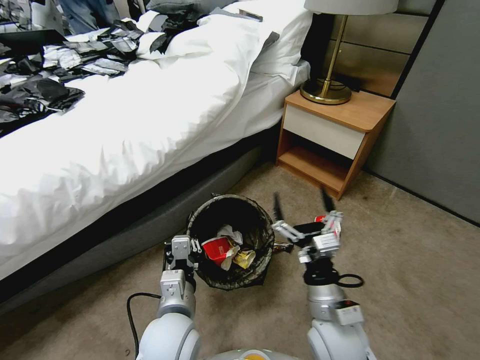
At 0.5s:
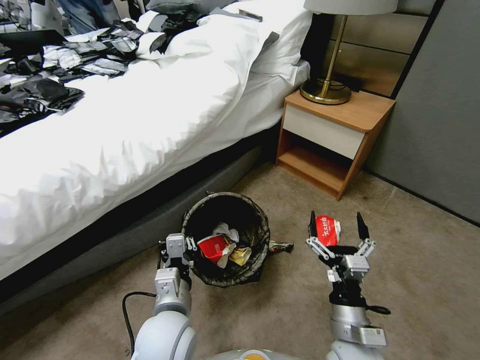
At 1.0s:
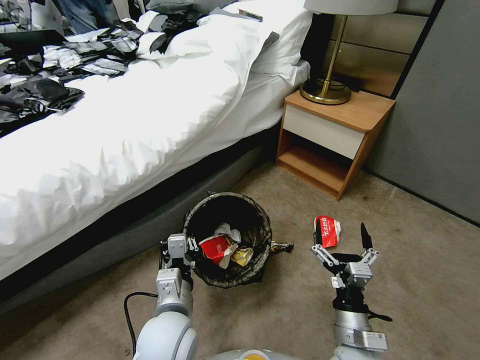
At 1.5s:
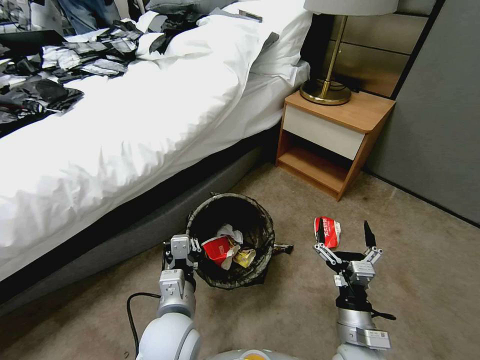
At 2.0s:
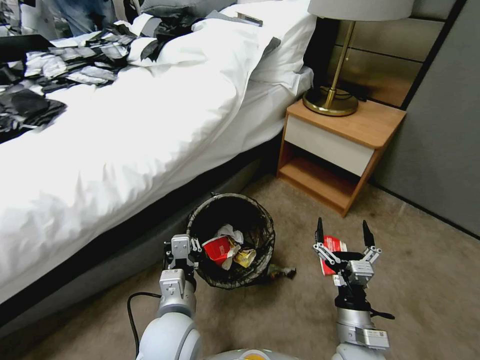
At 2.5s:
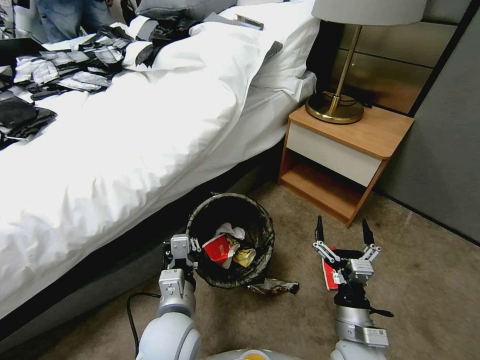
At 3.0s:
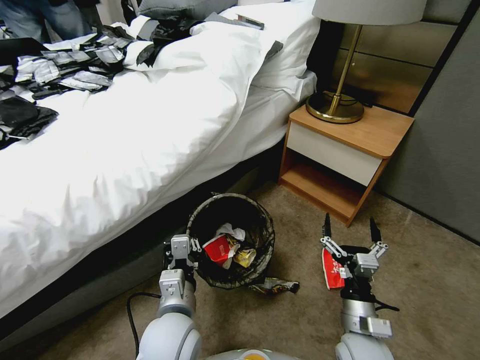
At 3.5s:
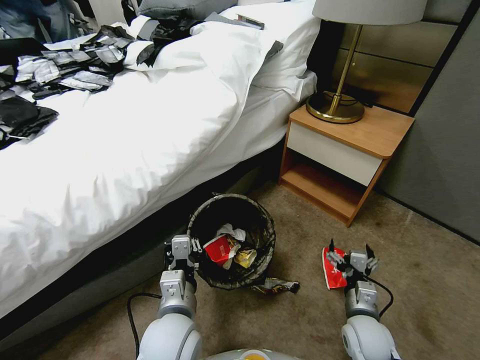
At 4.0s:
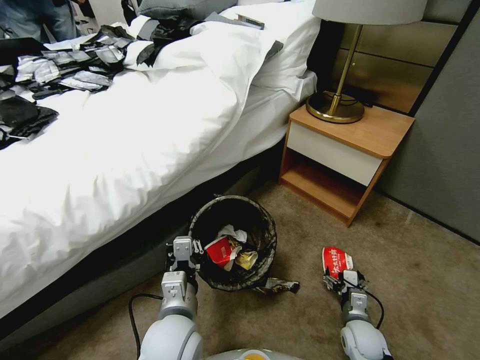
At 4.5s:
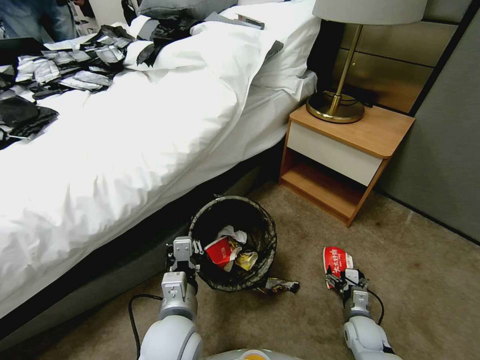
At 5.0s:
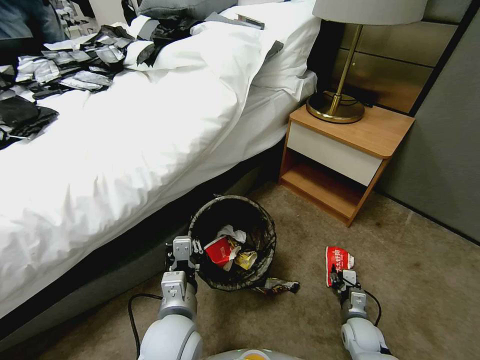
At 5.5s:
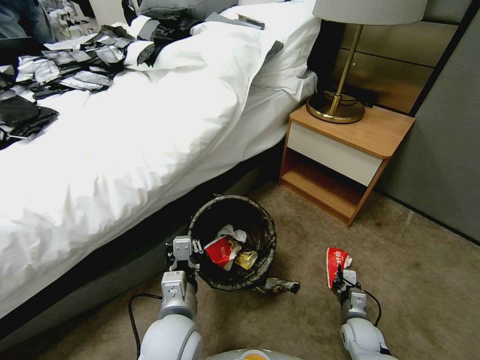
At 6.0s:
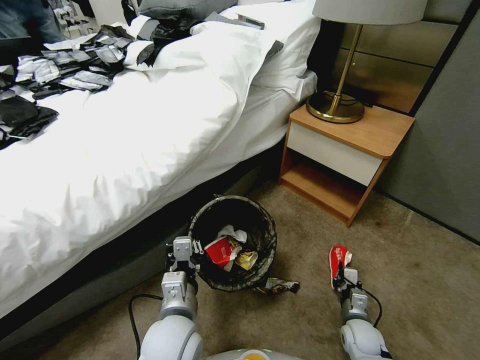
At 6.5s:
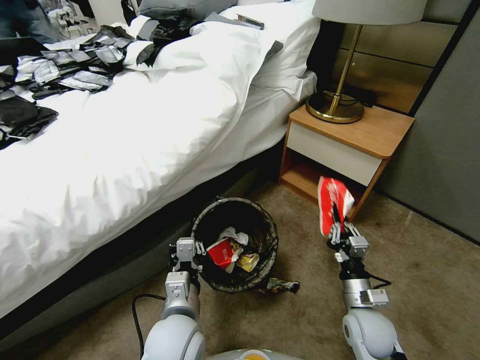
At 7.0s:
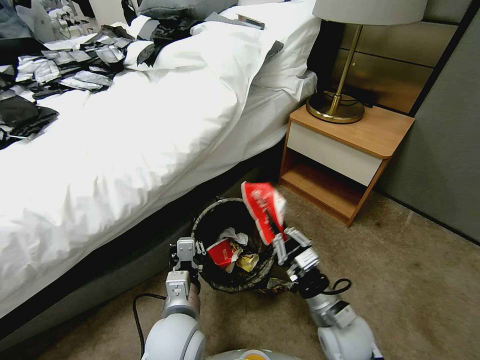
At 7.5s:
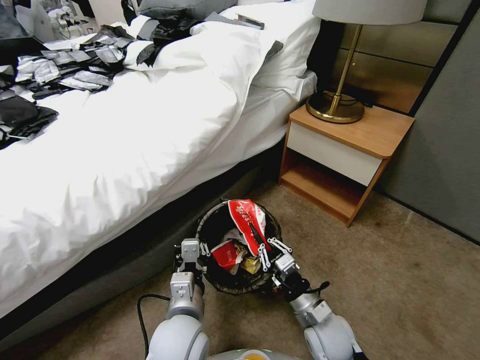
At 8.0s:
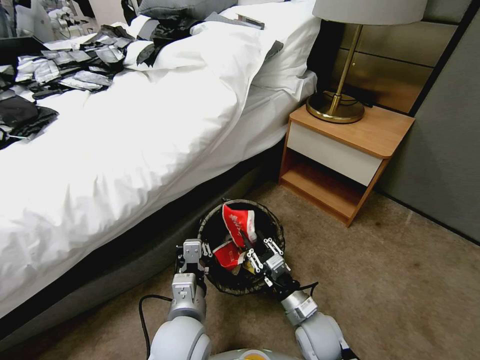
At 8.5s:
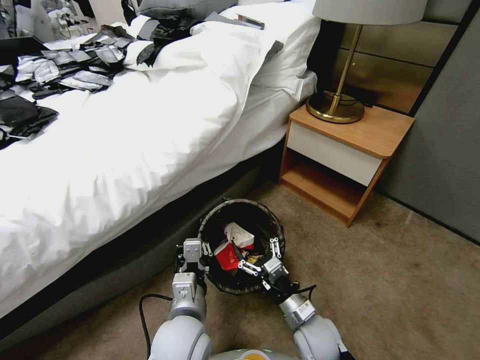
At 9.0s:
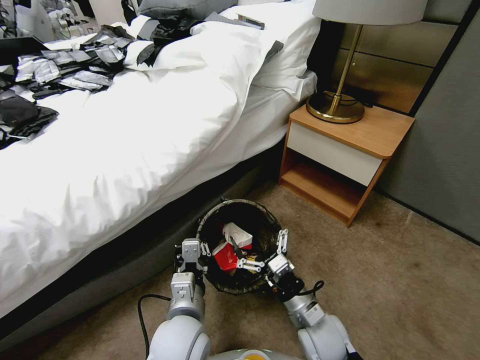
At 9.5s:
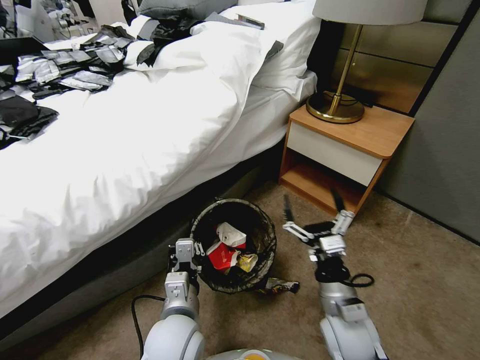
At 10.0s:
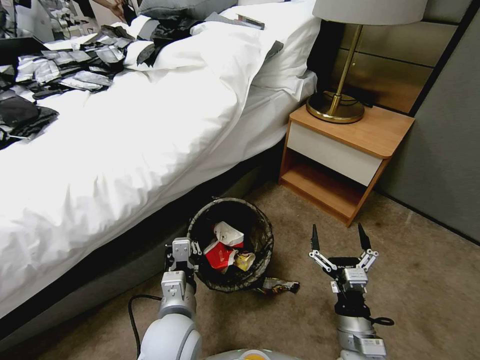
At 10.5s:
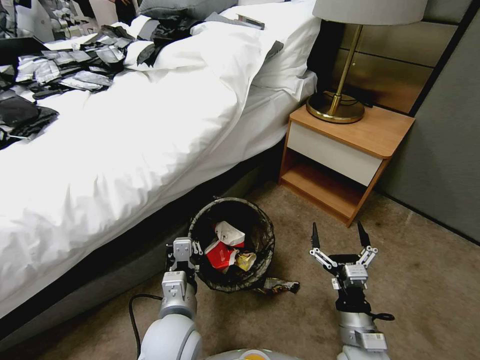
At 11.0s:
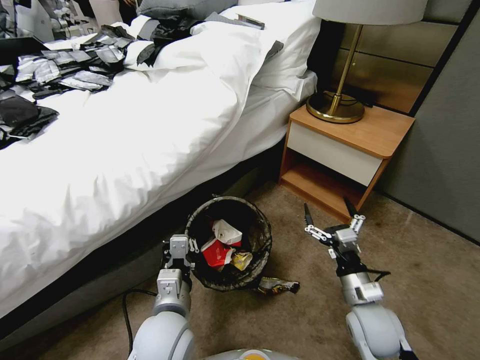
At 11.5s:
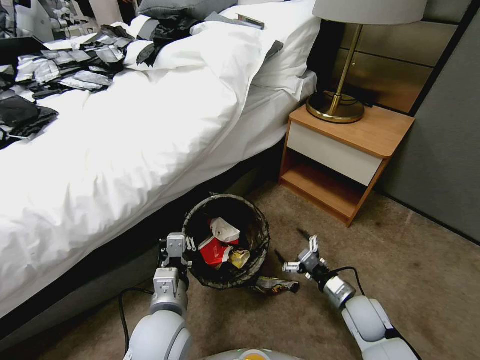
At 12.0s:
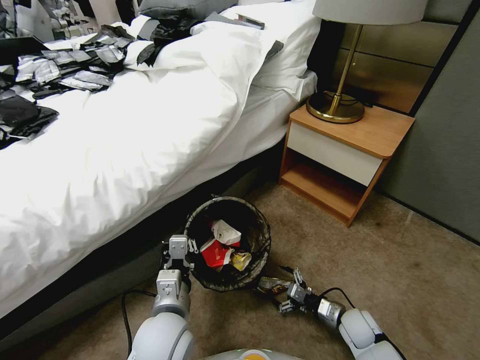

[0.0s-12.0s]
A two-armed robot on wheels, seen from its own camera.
Task of the whole recording: Pick up the trash bin, then pick up the garbage from the floor and place it into the trash bin.
0.0s to 2.0s: The right gripper travels downward and to the right by about 10 cm.
2.0s to 4.0s: The right gripper travels downward, to the right and forward by about 20 cm.
4.0s to 6.0s: The right gripper closes up.
6.0s to 8.0s: The right gripper shifts roughly 20 cm to the left and upward.
8.0s to 10.0s: The right gripper moves backward and to the right, about 10 cm, and opens its fingers.
10.0s to 12.0s: The right gripper travels downward, forward and to the right by approximately 20 cm.

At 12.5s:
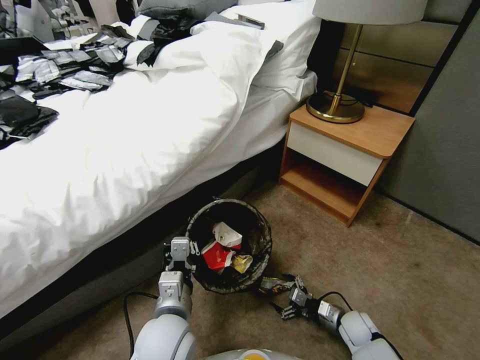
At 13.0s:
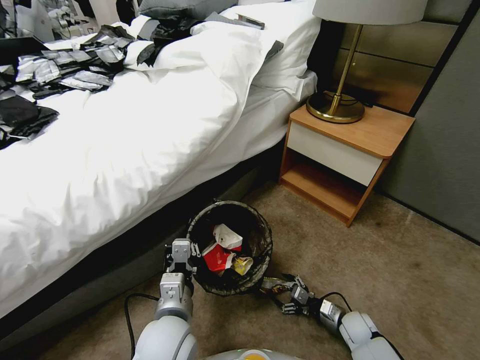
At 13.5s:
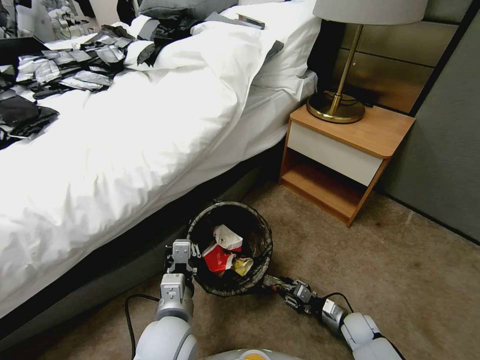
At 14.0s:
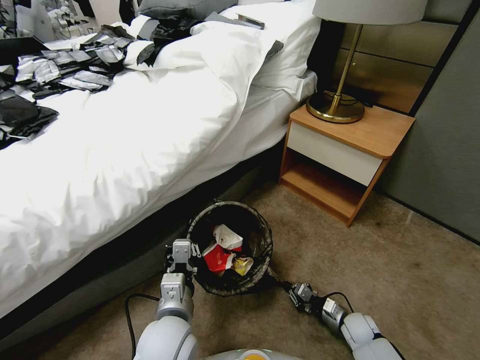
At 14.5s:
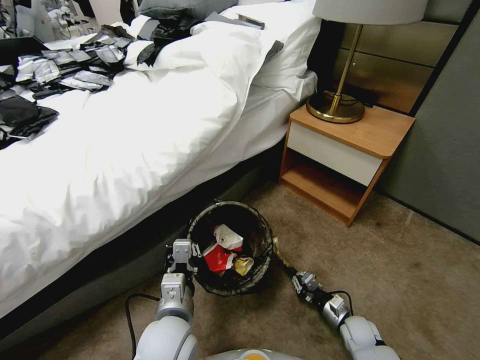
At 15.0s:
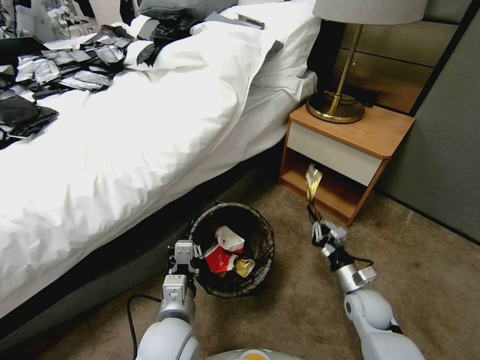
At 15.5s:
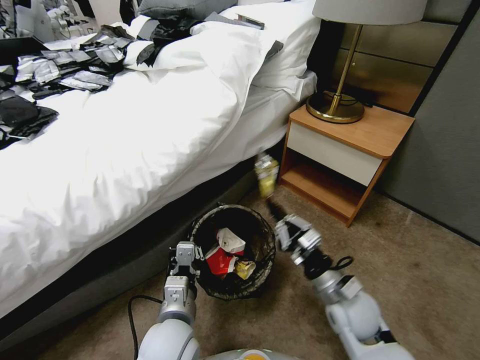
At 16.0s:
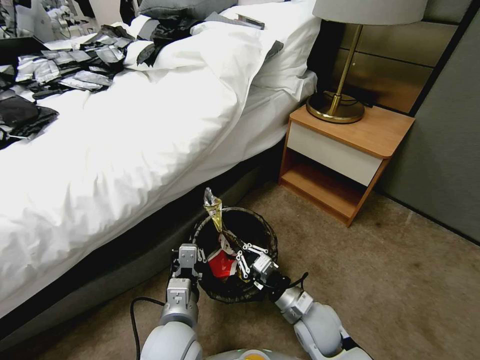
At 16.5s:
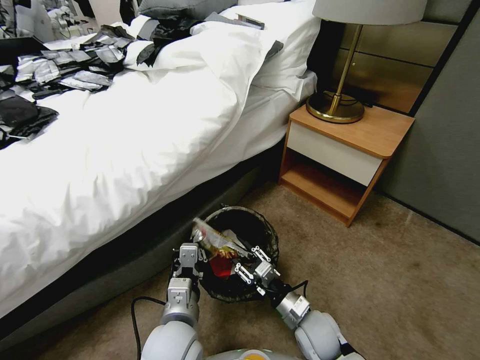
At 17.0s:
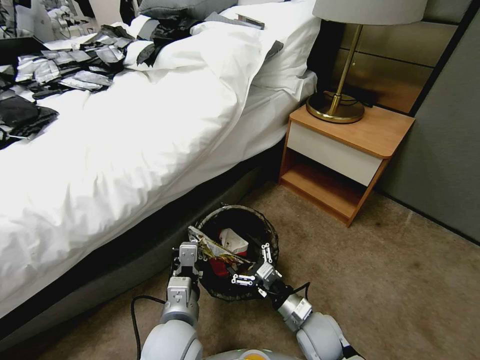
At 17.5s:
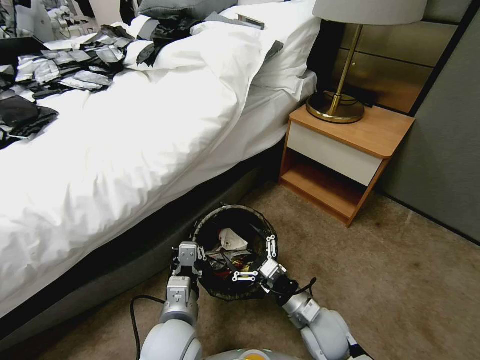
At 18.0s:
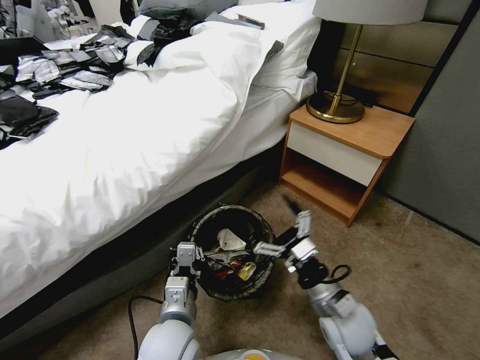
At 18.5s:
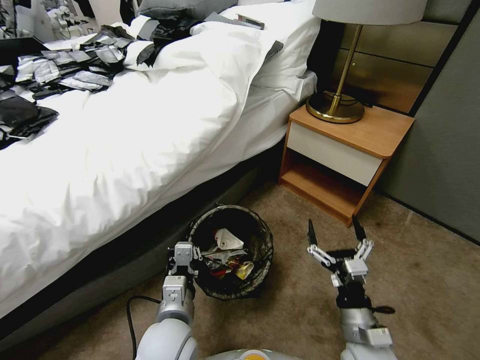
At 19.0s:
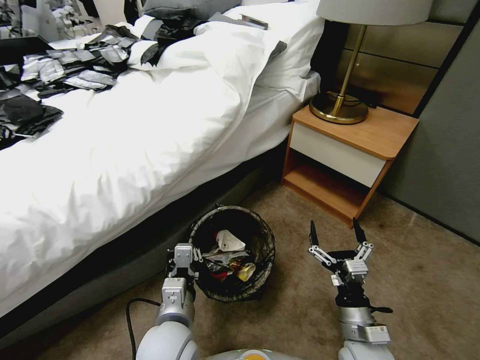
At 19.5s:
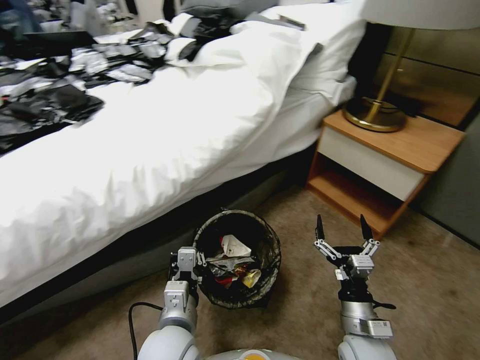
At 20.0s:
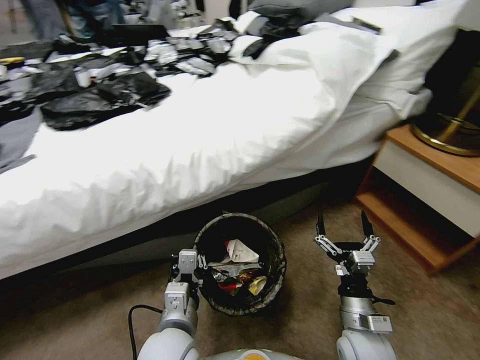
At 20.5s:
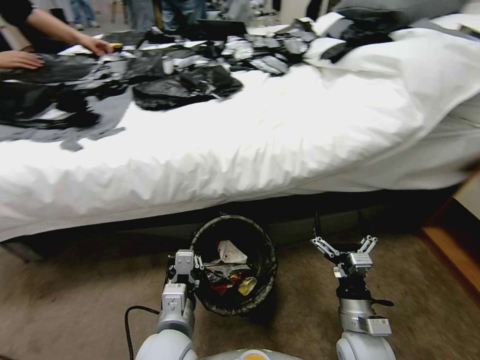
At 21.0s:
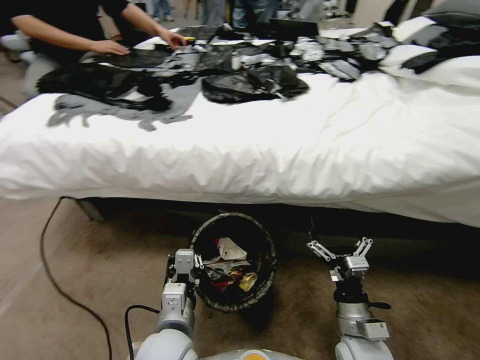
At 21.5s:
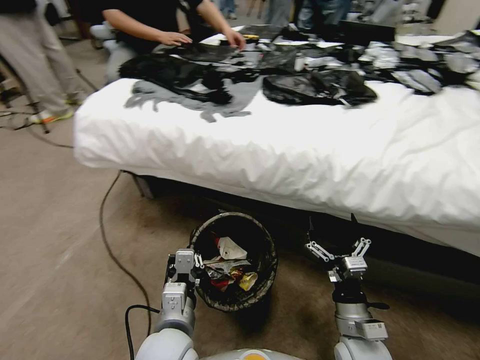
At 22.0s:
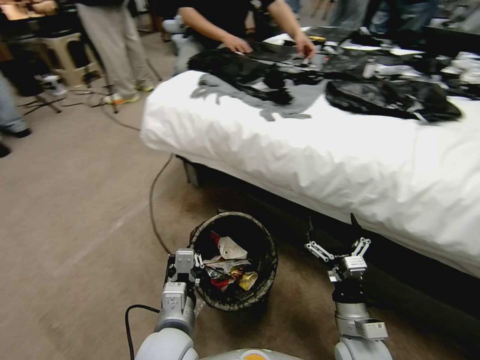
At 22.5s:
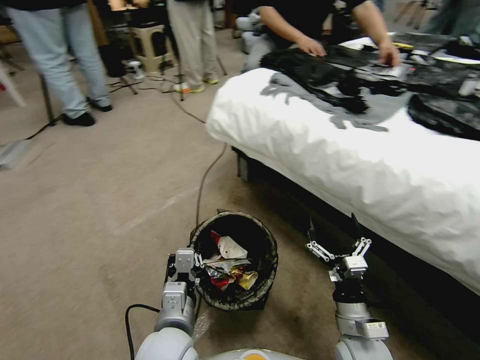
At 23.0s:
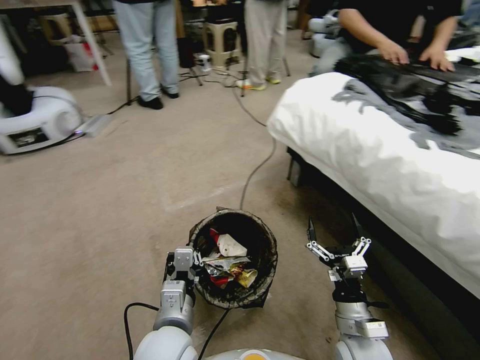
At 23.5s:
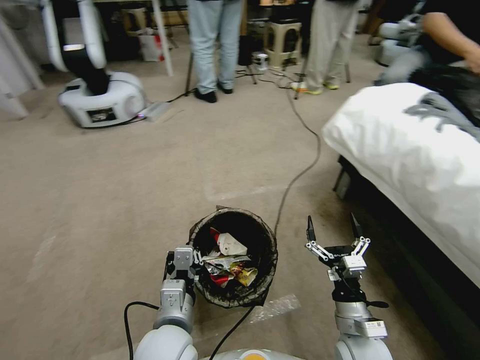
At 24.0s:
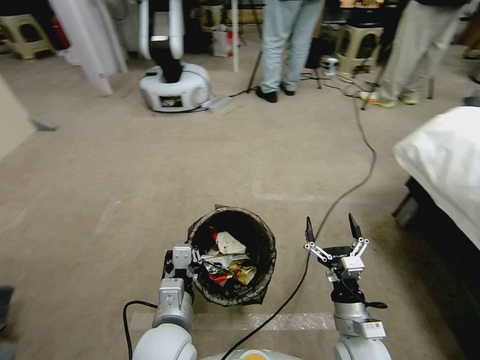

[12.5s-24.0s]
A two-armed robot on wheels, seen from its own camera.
Task of the whole recording: Pick up the trash bin, then pick up the garbage from the floor and place it into the trash bin.
12.5s to 14.5s: The right gripper closes up.
14.5s to 16.5s: The right gripper moves to the left and upward, approximately 20 cm.
16.5s to 18.5s: The right gripper moves to the right, backward and upward, approximately 10 cm, and opens its fingers.

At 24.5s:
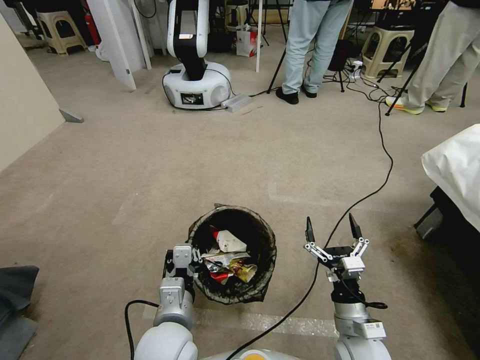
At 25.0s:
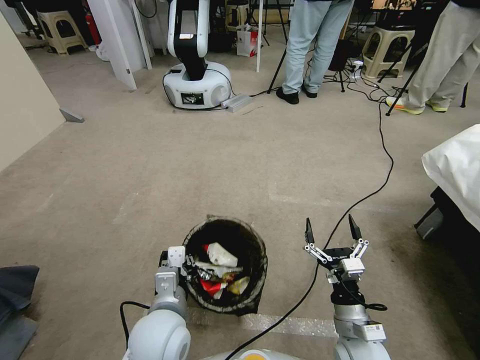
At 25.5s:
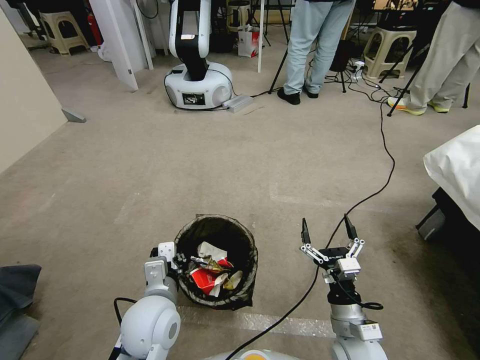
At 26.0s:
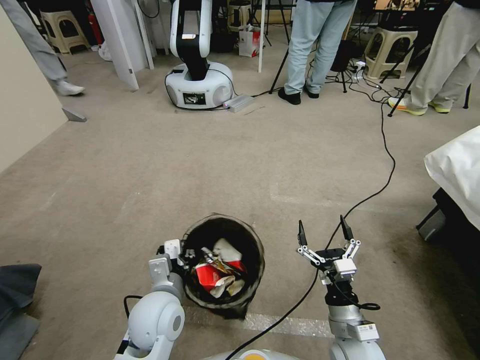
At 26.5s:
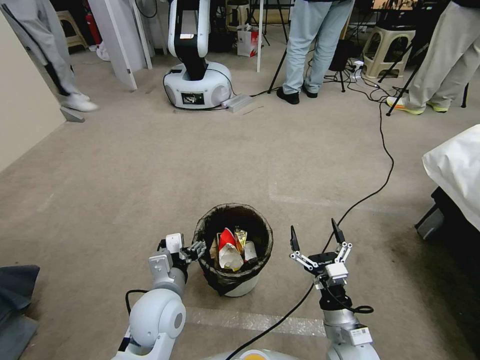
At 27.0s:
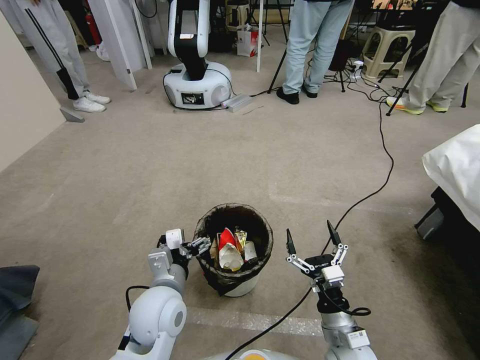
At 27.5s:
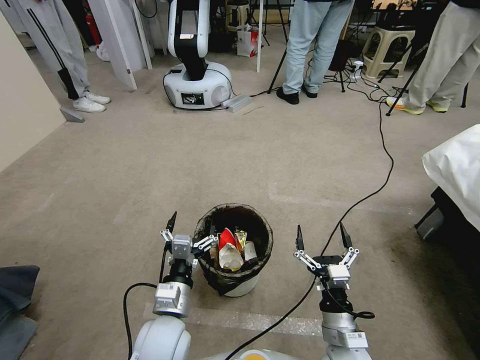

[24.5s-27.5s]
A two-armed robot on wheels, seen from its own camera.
Task of the whole recording: Pick up the trash bin, then pick up the garbage from the floor and place it into the trash bin.
24.5s to 26.0s: The left gripper moves forward, approximately 5 cm.
26.0s to 27.5s: The left gripper opens up.
